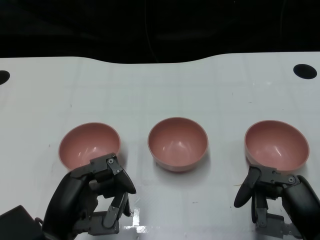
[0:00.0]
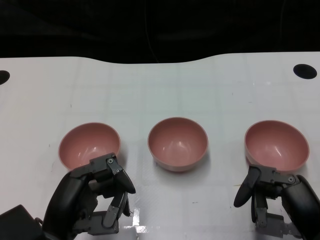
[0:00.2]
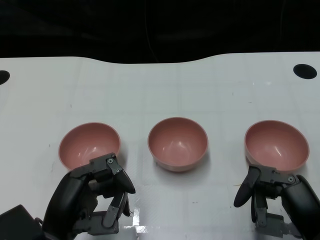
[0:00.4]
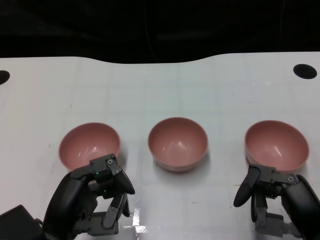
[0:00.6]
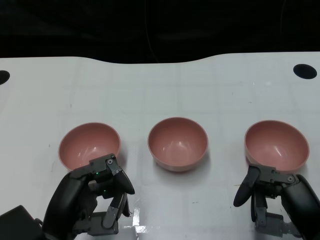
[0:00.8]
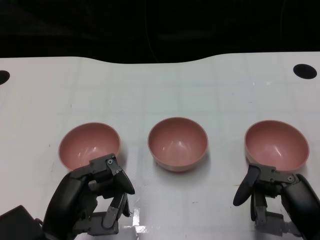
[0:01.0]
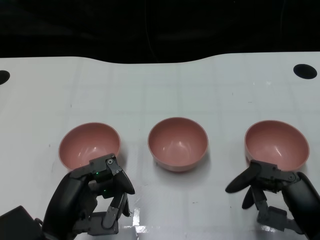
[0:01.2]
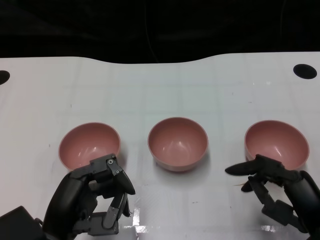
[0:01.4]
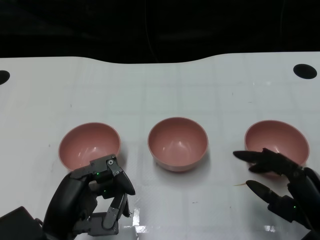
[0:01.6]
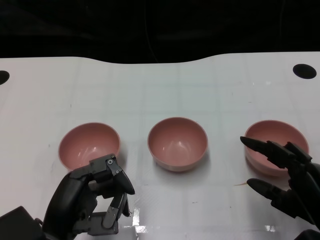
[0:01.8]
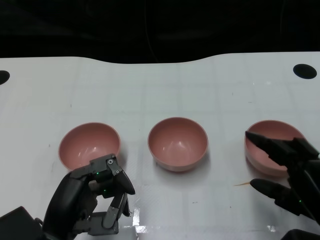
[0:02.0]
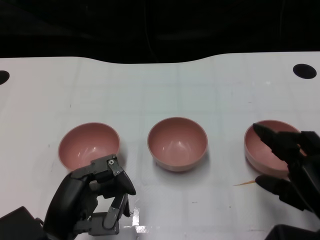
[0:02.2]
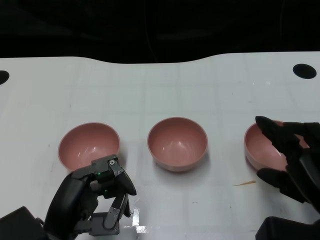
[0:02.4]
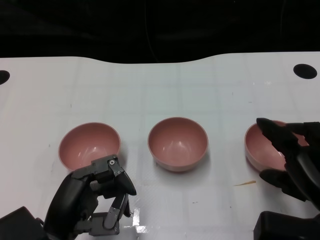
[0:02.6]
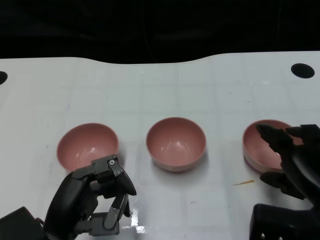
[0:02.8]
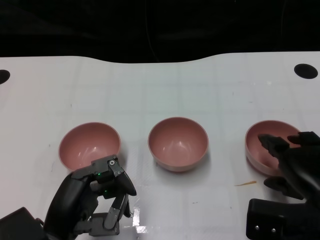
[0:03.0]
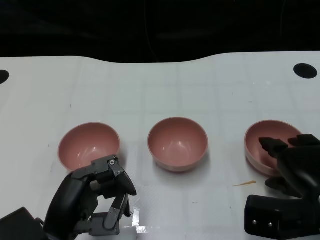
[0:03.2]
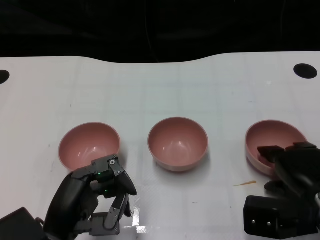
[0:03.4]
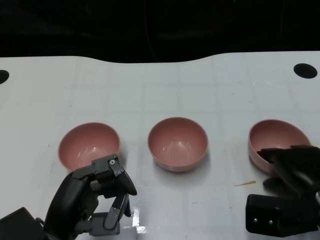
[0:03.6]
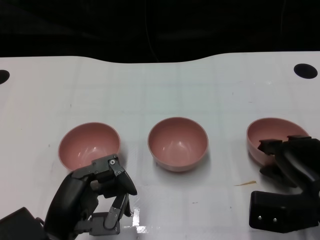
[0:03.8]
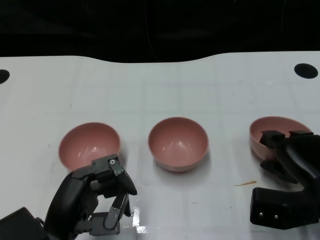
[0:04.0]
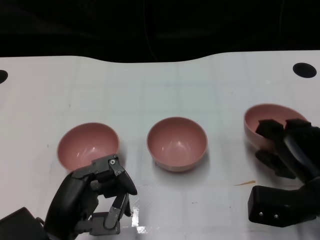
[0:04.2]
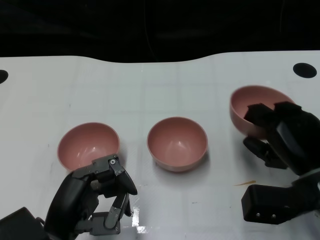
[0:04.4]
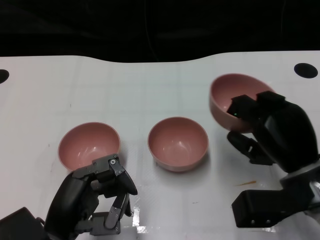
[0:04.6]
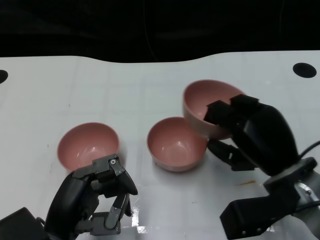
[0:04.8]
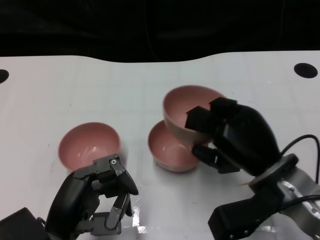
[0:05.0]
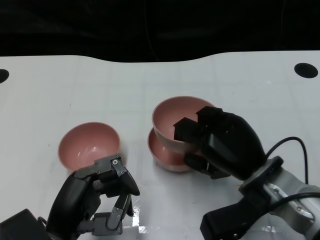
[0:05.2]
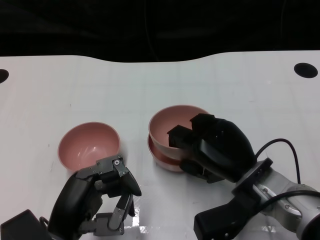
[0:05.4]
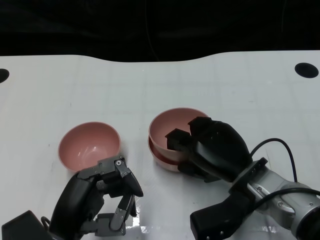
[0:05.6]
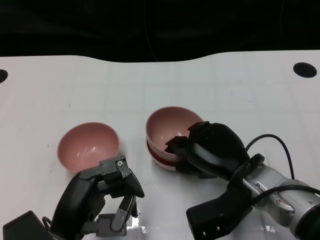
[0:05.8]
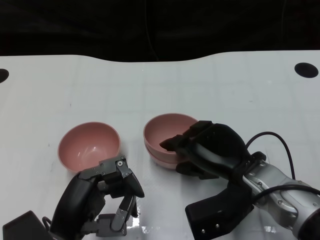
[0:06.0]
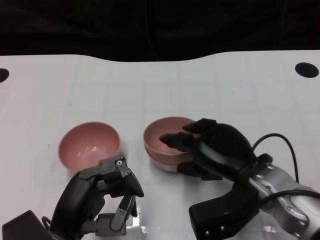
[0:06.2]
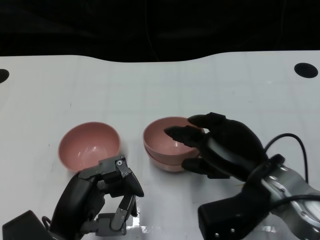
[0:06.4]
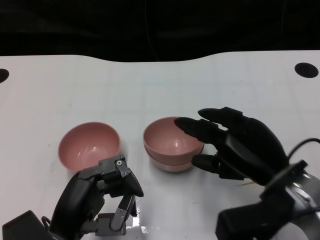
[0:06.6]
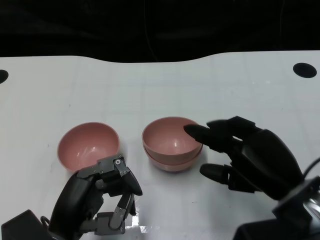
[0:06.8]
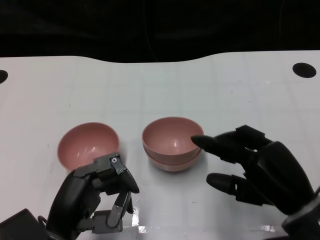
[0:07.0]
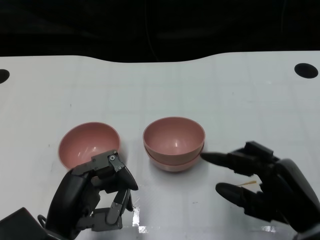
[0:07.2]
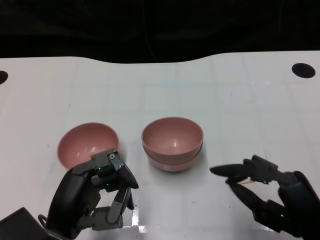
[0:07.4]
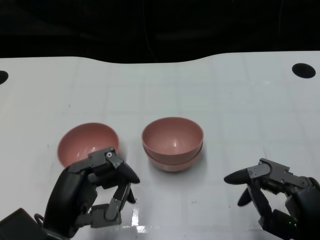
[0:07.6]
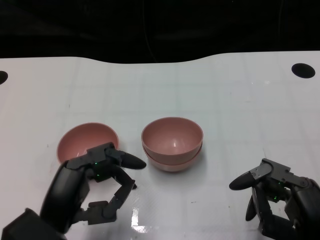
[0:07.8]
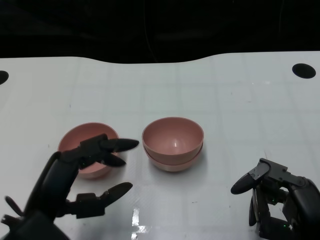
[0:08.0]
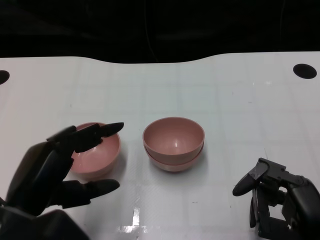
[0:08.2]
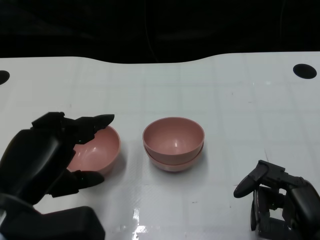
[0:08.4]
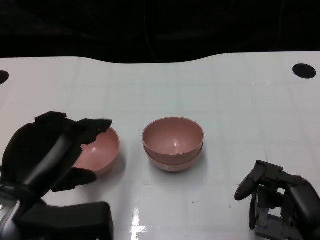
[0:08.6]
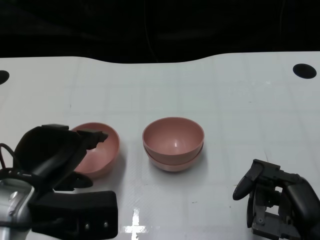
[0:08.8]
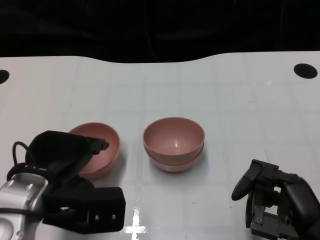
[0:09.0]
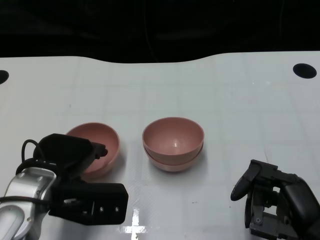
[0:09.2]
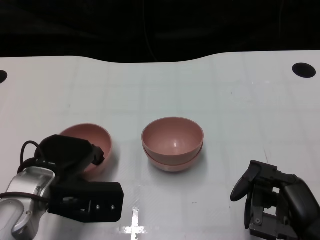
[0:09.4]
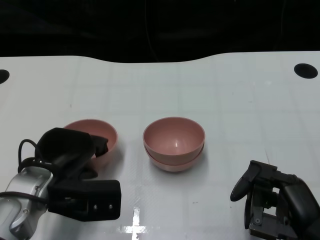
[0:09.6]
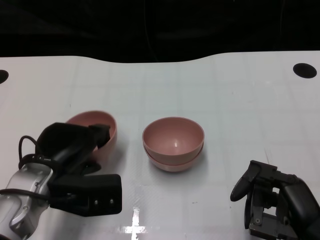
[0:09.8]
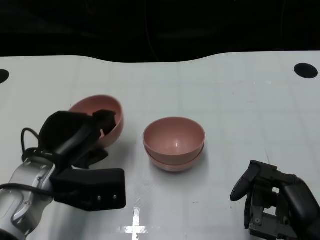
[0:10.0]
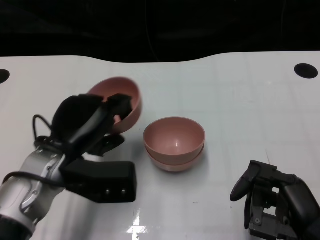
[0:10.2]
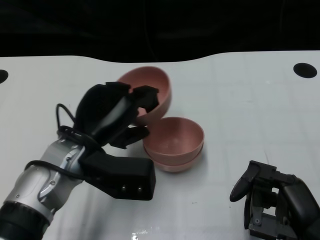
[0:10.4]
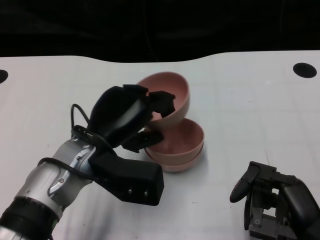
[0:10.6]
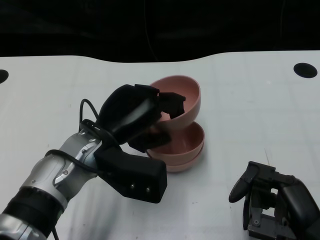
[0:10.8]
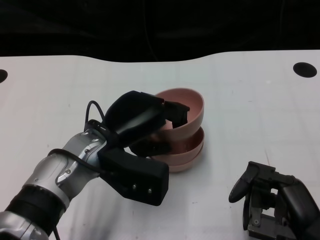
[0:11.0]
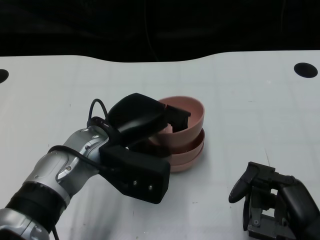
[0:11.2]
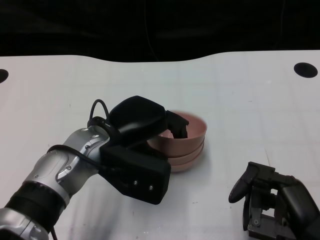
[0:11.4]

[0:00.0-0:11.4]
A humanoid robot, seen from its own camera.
Task of the whole recording: Pick up the bowl on one side of the table and place it on top of the middle bowl, then pick up the bowl on the other side of the table and place it on top of the middle bowls.
Step, 1.2 to 4.0 s: Grasp the bowl on the right with the right gripper.
Step, 4.2 to 7.0 s: Place the bowl on the right onto the bowl in the middle with right gripper.
Step, 7.2 to 9.8 s: Grasp the bowl on the left with the left gripper.
2.8 to 4.2 s: The right hand shifts some 5 cm forward.
4.2 to 5.6 s: The right hand is displaced to the left by roughly 10 cm.
5.6 to 7.2 s: The right hand travels backward and to the right by some 10 cm.
7.2 to 8.6 s: The left hand heads upward, covering roughly 10 cm.
8.6 to 10.0 s: The left hand is displaced forward and downward by about 10 cm.
10.0 to 11.4 s: The left hand is displaced to the right by roughly 10 cm.

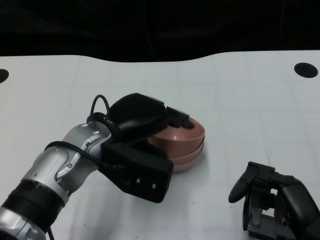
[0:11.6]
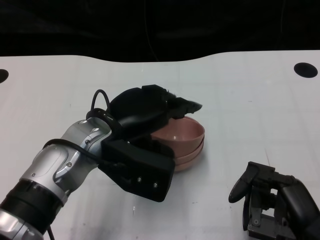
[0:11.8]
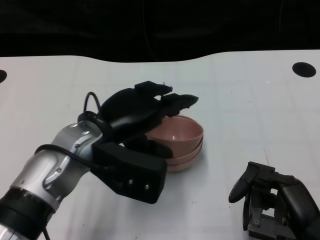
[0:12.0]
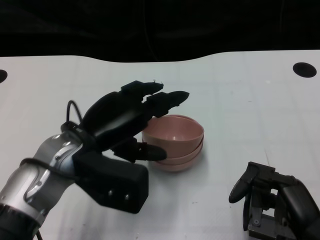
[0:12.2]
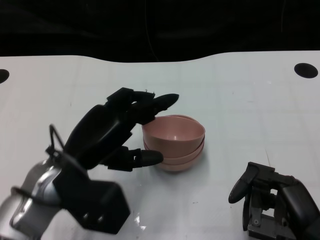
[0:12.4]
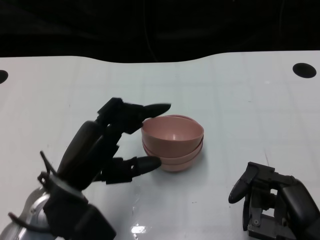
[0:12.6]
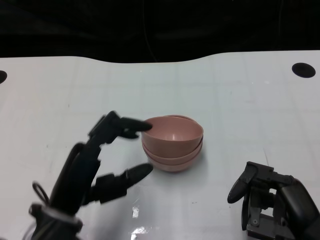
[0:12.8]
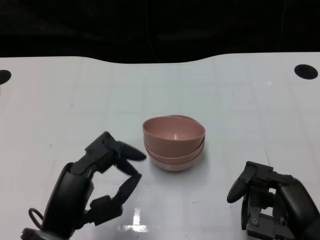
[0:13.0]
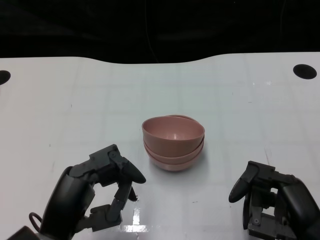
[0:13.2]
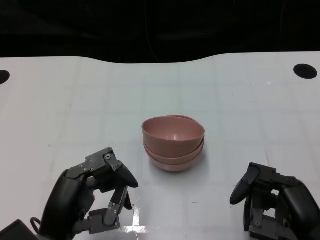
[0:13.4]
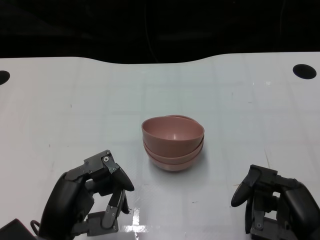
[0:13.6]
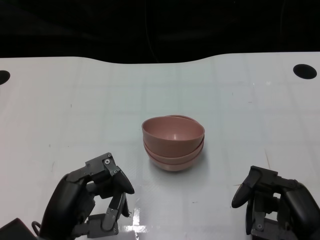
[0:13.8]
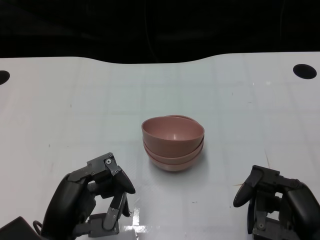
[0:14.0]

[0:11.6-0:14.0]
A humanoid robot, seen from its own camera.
Task of the whole recording: Pick up the bowl on one side of the table and place it on top of the middle bowl, then pick up the bowl on the other side of the table and place it on top of the middle bowls.
11.6 to 12.8 s: The left hand shifts approximately 10 cm backward and to the left.

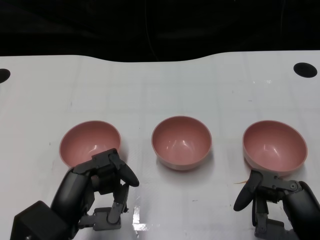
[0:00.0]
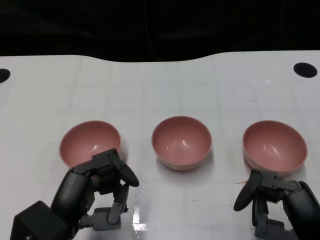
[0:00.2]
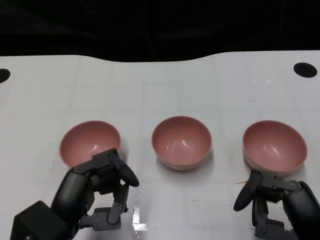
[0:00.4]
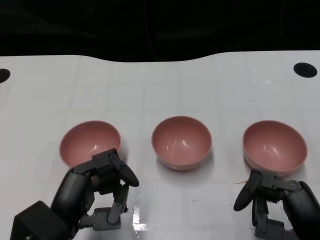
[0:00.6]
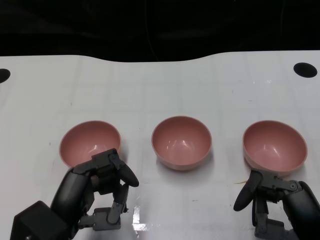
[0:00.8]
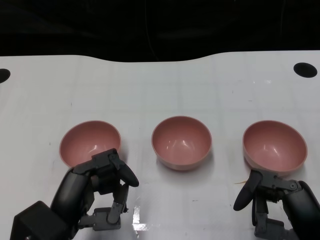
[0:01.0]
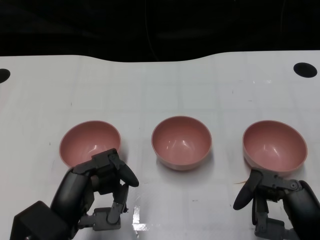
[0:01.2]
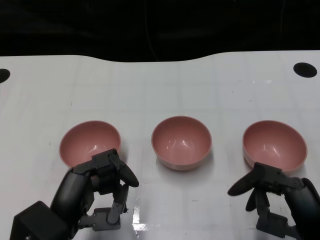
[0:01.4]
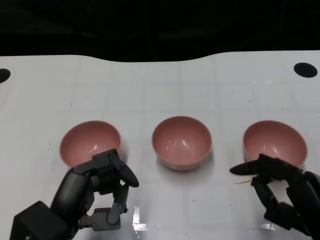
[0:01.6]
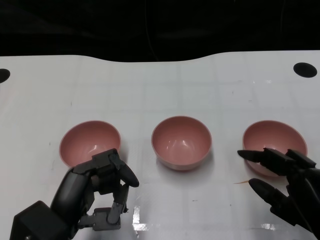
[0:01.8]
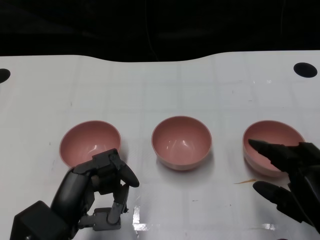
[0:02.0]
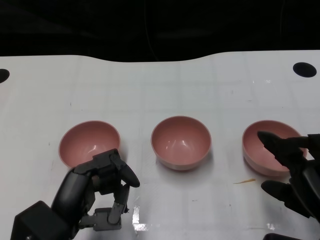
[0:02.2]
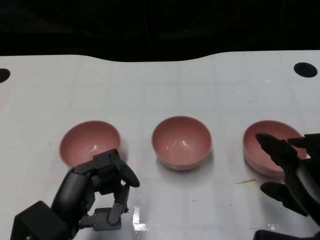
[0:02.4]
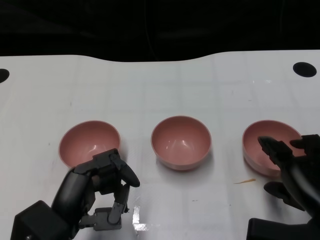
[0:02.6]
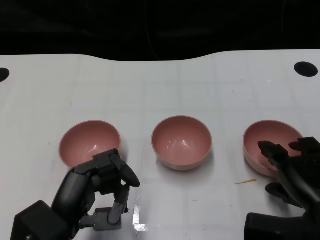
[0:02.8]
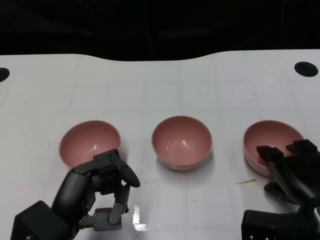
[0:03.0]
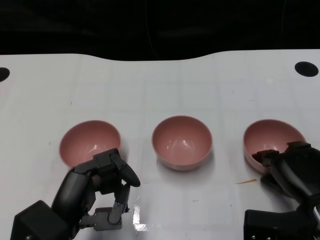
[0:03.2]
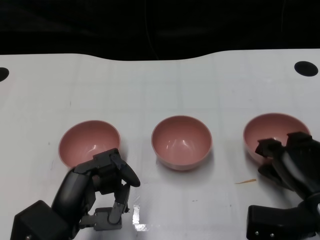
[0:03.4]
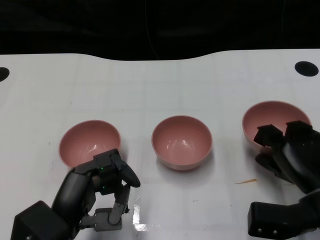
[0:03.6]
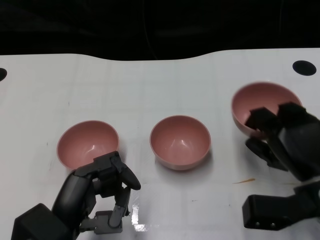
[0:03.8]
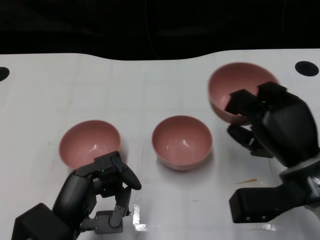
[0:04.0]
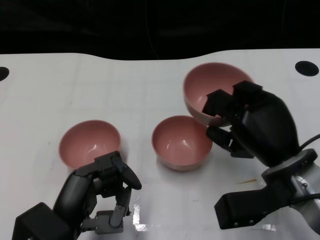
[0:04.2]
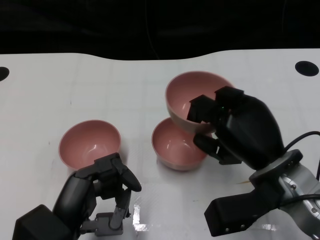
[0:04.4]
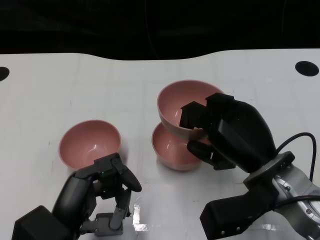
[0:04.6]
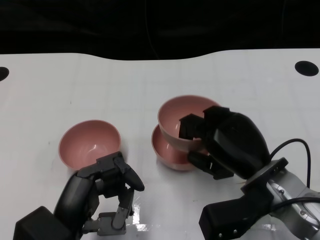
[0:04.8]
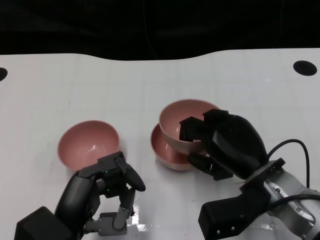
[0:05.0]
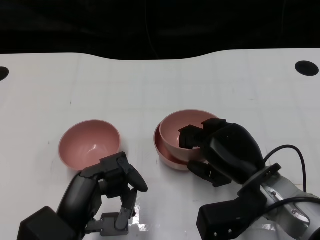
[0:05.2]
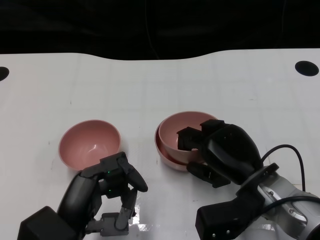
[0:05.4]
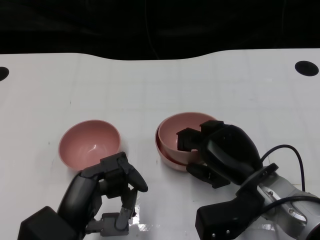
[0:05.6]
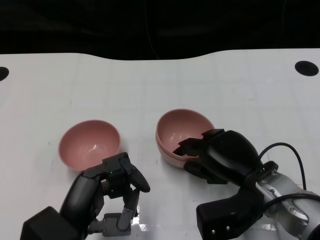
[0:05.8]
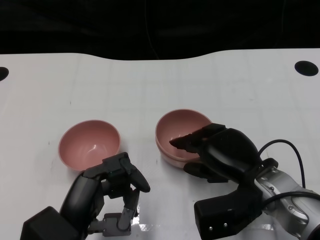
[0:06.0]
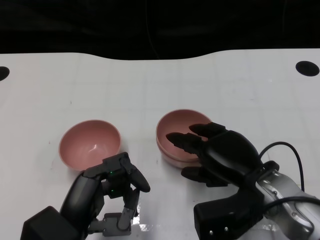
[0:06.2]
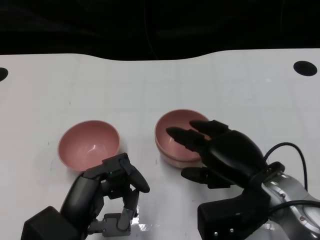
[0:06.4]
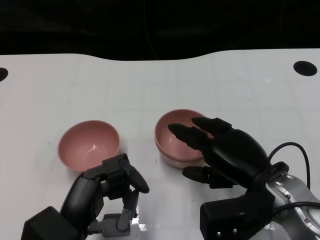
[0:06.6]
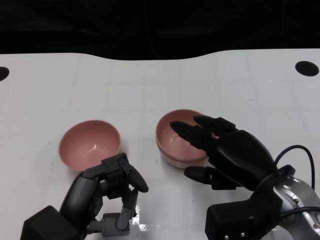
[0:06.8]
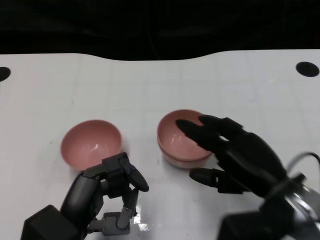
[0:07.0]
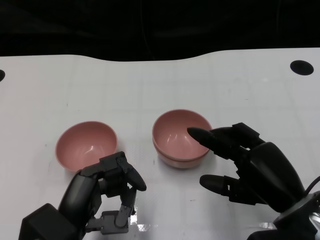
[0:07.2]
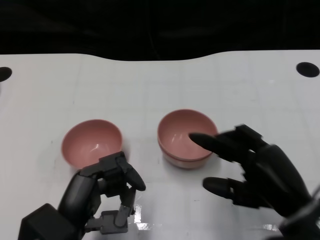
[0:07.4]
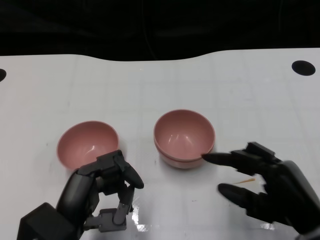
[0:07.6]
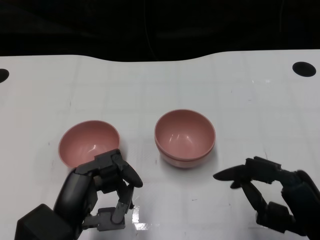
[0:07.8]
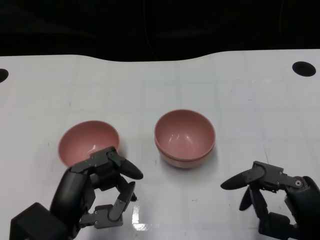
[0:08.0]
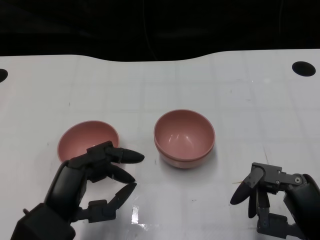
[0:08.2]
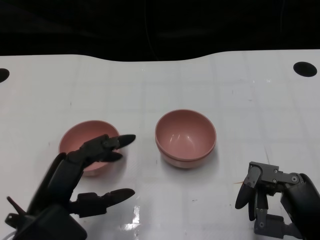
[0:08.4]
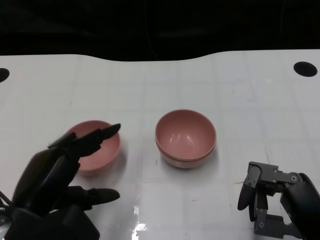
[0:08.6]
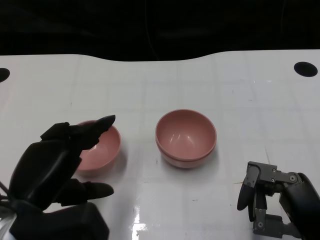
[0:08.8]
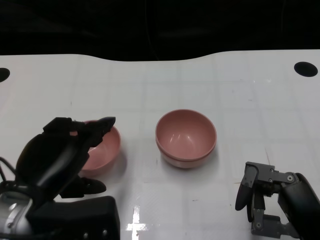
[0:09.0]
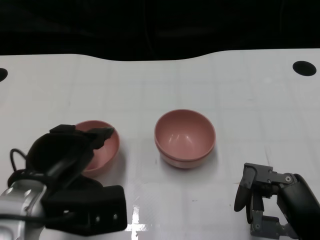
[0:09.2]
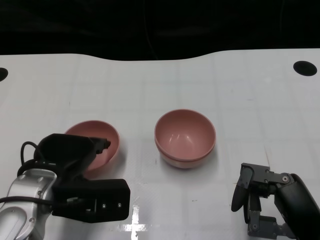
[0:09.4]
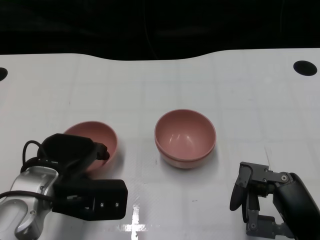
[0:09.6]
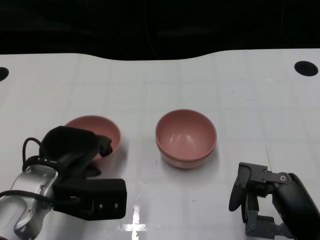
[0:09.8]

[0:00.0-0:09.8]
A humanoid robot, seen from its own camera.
Task of the whole recording: Pick up the bowl on one side of the table and place it on top of the middle bowl, then pick up the bowl on the other side of the table and place it on top of the middle bowls.
Step, 1.4 to 3.4 s: Grasp the bowl on the right with the right gripper.
Step, 3.6 to 7.0 s: Place the bowl on the right onto the bowl in the middle with right gripper.
Step, 7.2 to 9.8 s: Grasp the bowl on the left with the left gripper.
1.4 to 2.8 s: The right hand moves forward, approximately 5 cm.
2.8 to 4.2 s: The right hand goes about 10 cm to the left and forward.
4.2 to 5.6 s: The right hand changes place by approximately 5 cm.
5.6 to 7.0 s: The right hand shifts by roughly 5 cm.
7.0 to 8.4 s: The right hand is displaced backward by about 10 cm.
8.4 to 9.8 s: The left hand travels forward by roughly 10 cm.
